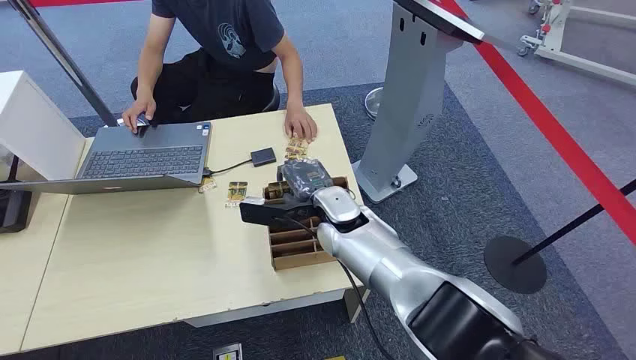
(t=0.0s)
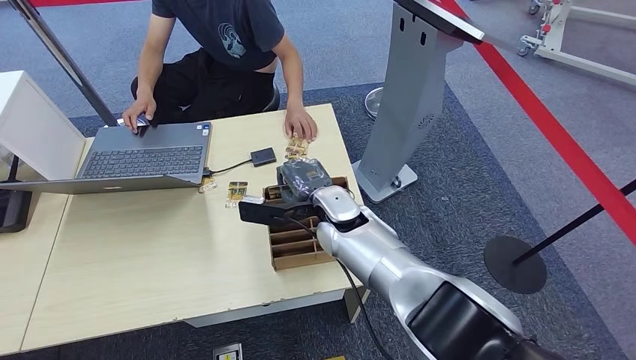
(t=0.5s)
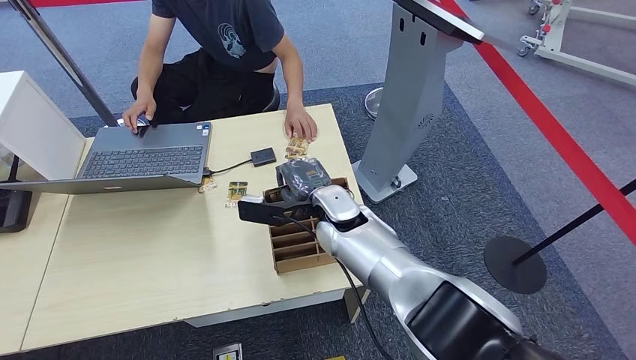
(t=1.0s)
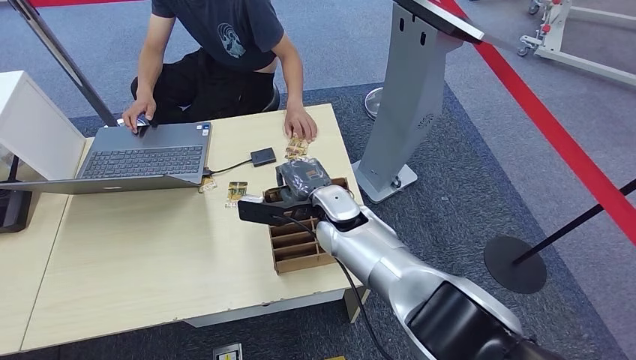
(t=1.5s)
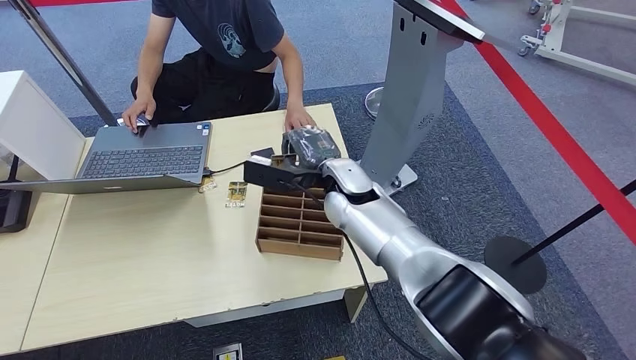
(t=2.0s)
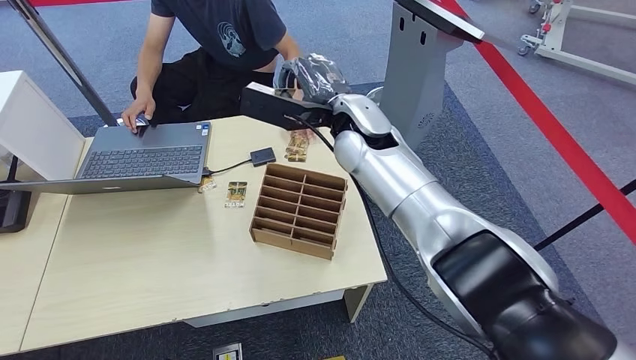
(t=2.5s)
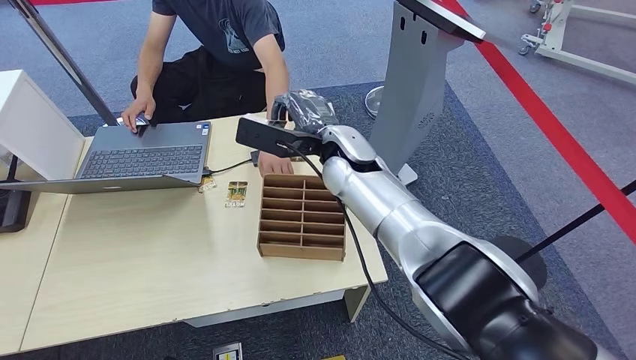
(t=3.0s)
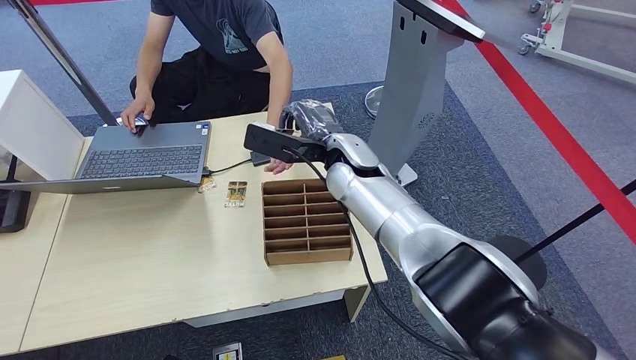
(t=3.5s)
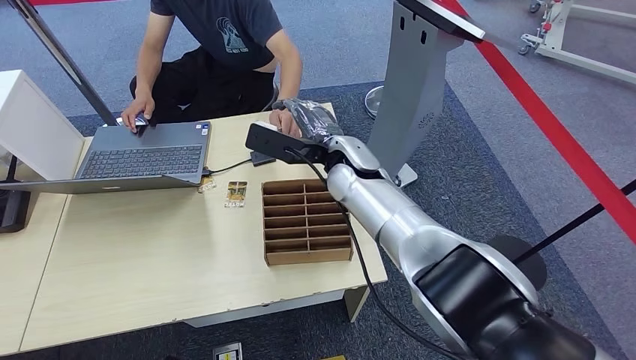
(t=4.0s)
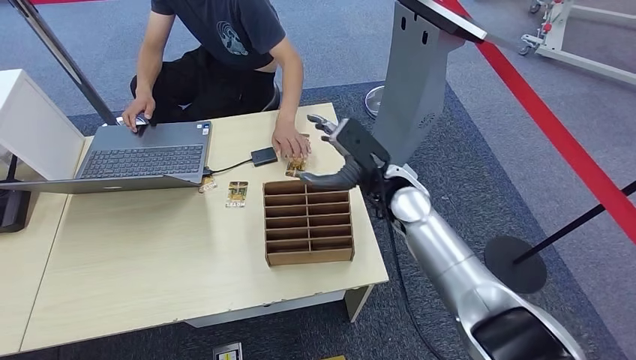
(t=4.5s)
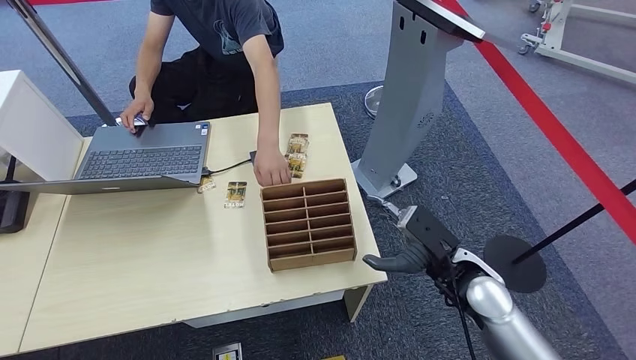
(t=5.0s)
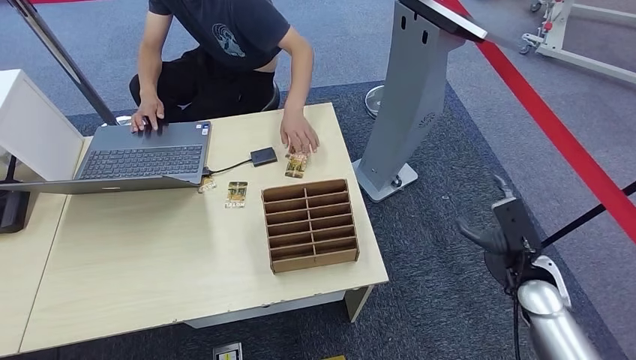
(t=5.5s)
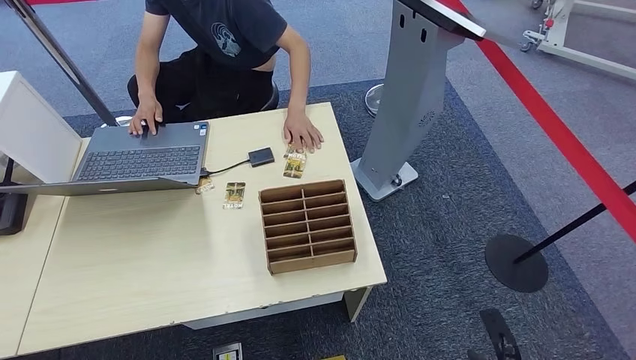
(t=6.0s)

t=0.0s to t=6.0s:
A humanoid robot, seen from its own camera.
Step, t=0.0s to t=2.0s: Pick up the room card from the card holder.
Step, t=2.5s to t=6.0s: Hand the room card to the target.
t=4.0s to t=6.0s: The right hand heads backward, downward and to the right, covering approximately 60 cm.
